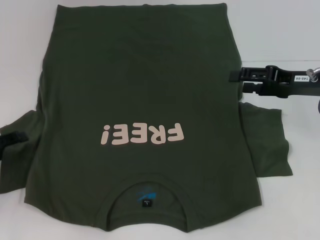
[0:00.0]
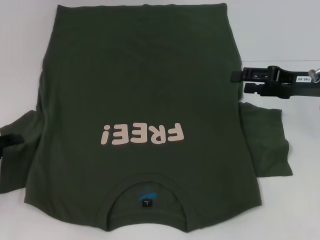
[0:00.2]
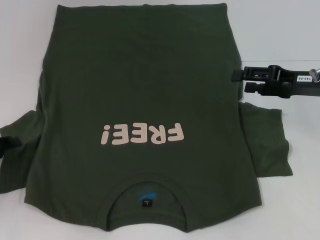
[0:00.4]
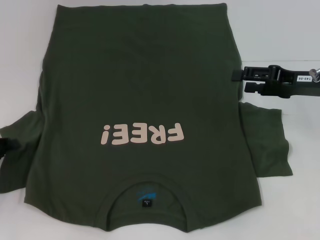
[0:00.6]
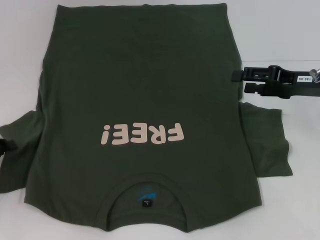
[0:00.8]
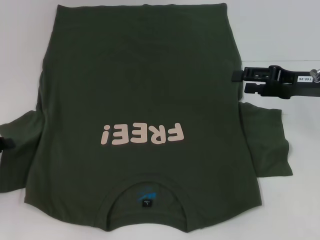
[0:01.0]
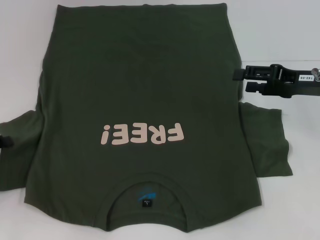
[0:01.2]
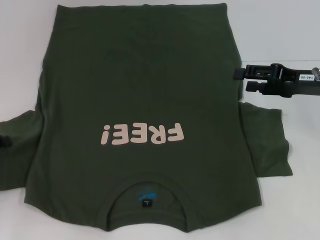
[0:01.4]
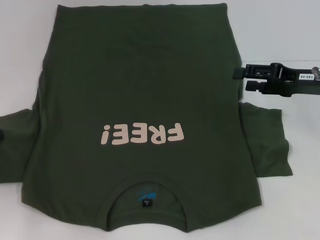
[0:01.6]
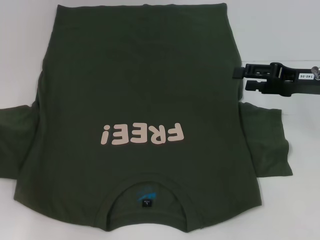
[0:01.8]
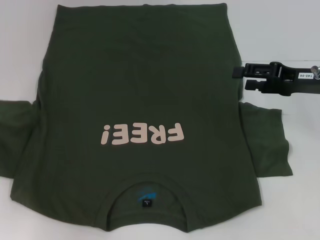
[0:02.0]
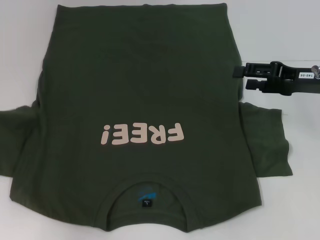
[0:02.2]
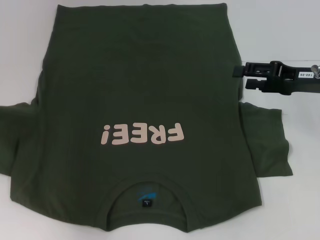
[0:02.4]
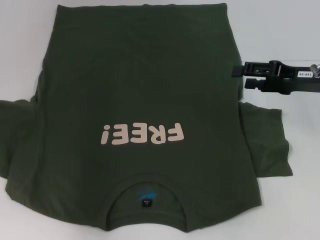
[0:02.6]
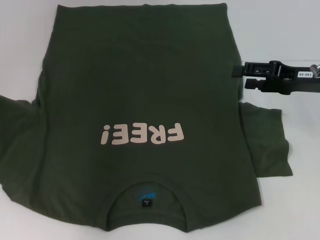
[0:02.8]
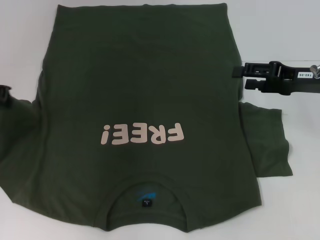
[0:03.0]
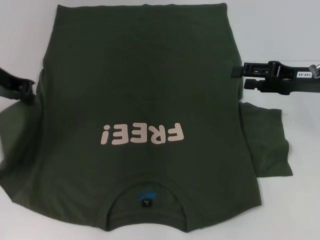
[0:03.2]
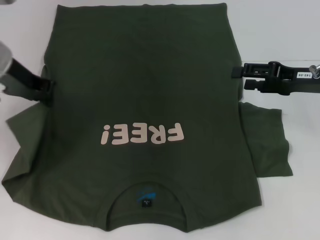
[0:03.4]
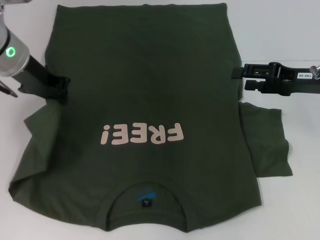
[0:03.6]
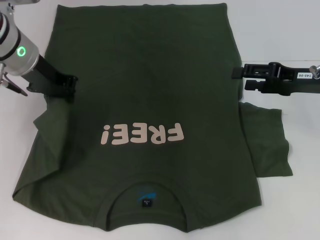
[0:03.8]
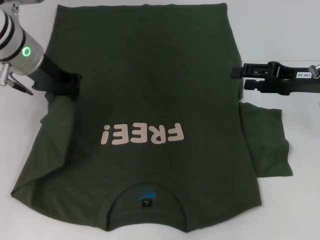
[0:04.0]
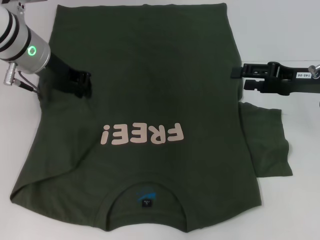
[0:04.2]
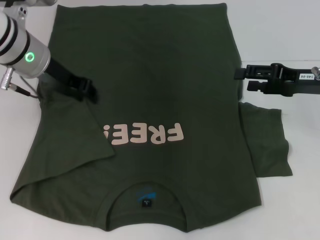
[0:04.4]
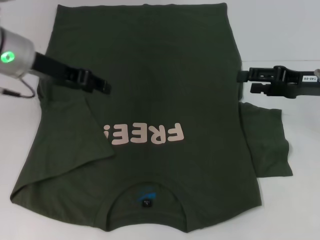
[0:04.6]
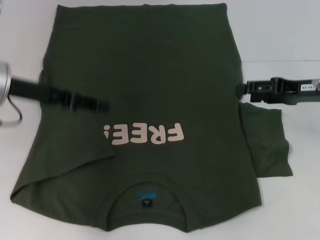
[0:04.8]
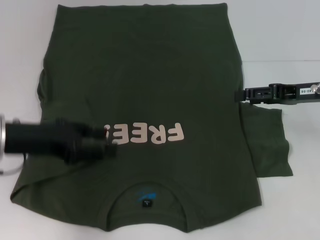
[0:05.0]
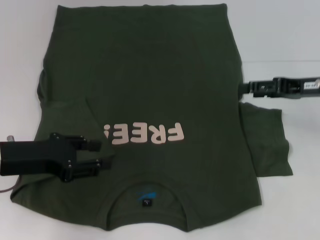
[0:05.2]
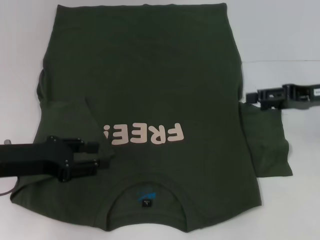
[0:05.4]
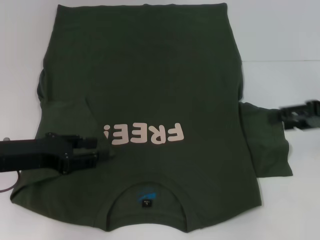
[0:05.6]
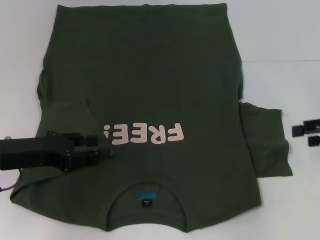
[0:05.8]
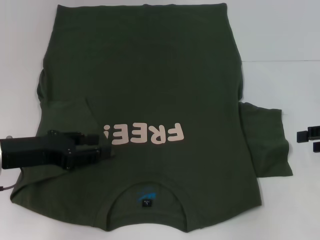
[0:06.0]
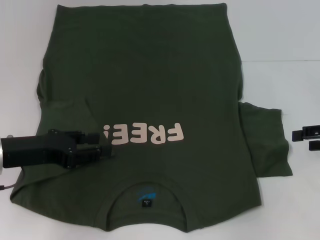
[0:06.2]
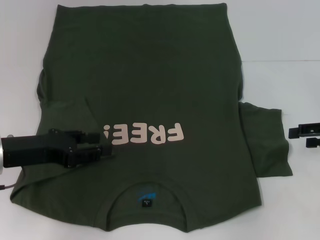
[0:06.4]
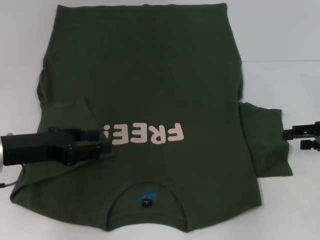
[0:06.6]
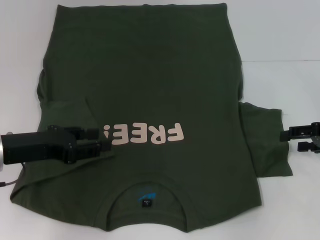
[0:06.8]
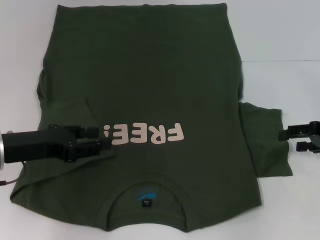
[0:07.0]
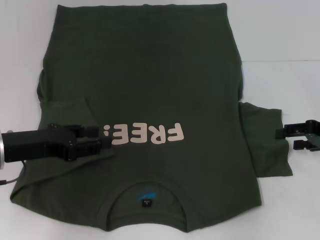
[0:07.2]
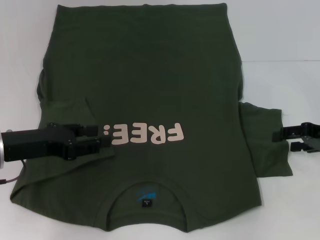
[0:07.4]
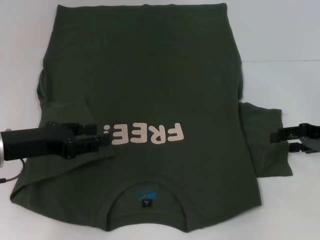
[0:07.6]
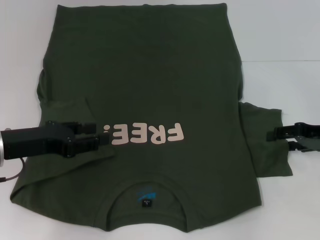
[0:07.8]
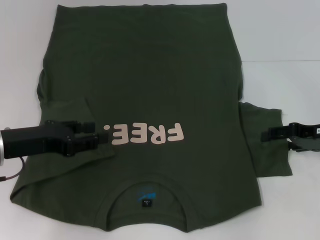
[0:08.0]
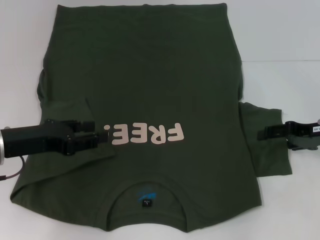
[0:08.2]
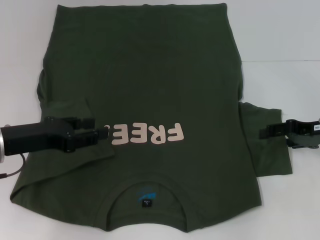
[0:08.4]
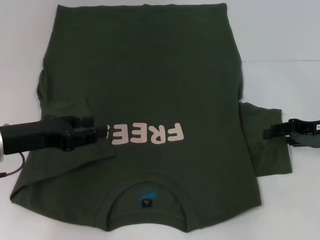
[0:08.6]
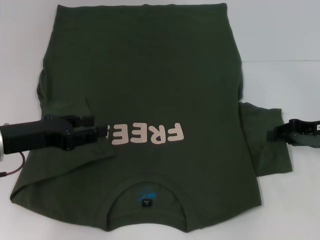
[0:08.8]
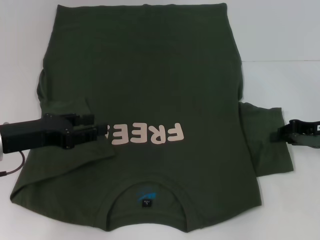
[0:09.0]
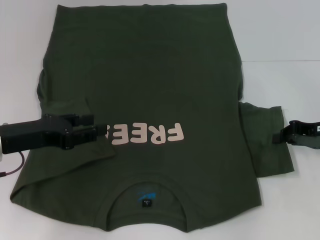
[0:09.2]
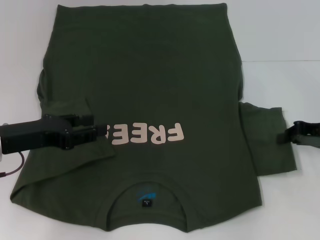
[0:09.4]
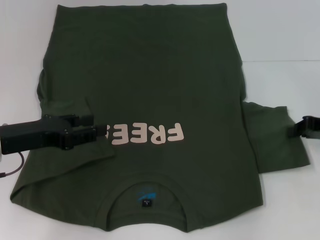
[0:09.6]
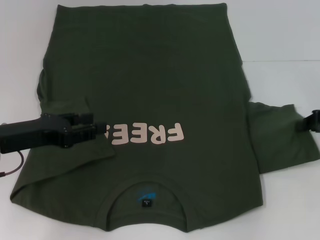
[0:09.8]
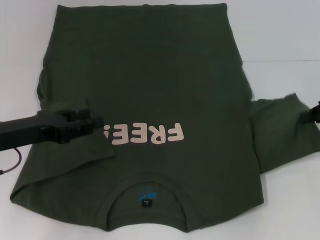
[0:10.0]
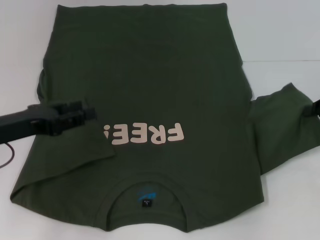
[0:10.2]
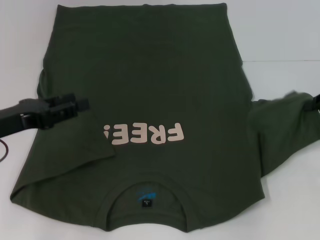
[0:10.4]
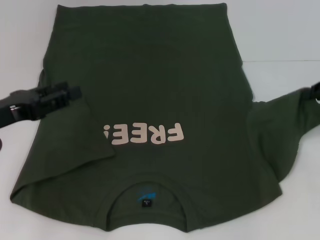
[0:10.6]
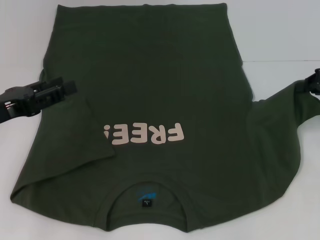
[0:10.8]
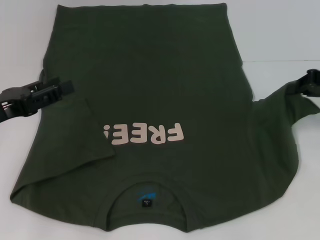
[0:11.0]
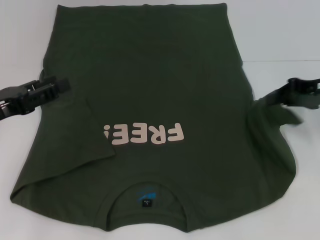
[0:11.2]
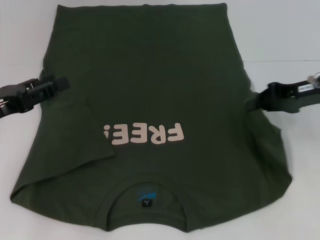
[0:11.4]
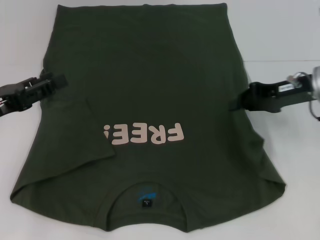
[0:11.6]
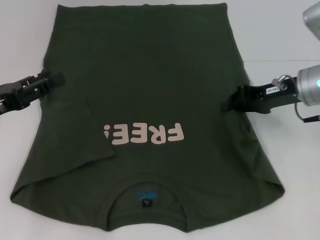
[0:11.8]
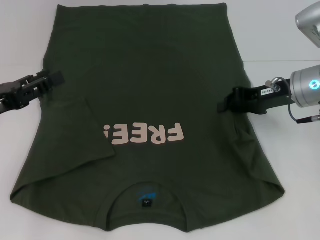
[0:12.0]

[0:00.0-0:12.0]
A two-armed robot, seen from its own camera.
Step, 0:00.0 to 0:04.4: Fold the bottom left sleeve with your left hand.
0:00.0 to 0:01.6: The left gripper closes up.
0:01.6 to 0:03.0: The left gripper shifts some 15 cm upward, forward and to the right.
0:03.0 to 0:04.4: The left gripper goes approximately 10 cm to the right.
0:04.4 to 0:06.0: The right gripper heads to the right and backward, covering about 10 cm; the left gripper travels backward, downward and to the left by approximately 15 cm.
0:06.0 to 0:07.6: The right gripper ends up some 5 cm from where it was.
0:07.6 to 0:09.0: The right gripper closes its fingers.
0:09.0 to 0:10.4: The right gripper ends up about 5 cm from where it was.
0:10.4 to 0:12.0: The right gripper heads to the left, covering roughly 15 cm.

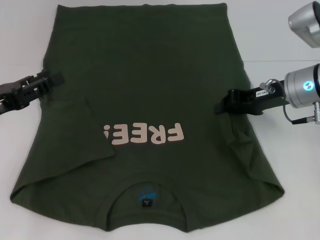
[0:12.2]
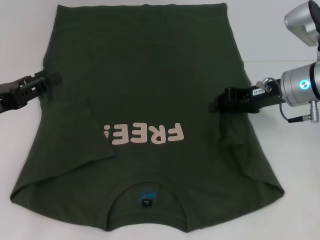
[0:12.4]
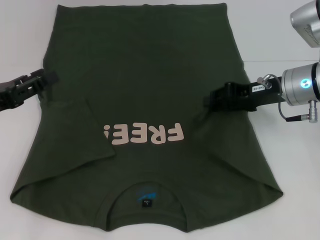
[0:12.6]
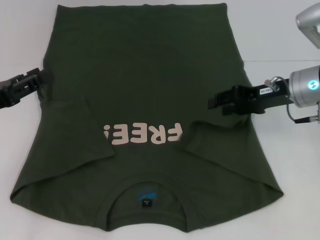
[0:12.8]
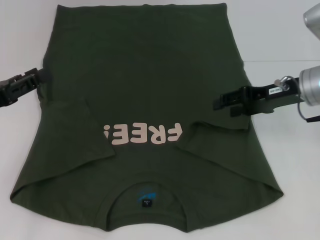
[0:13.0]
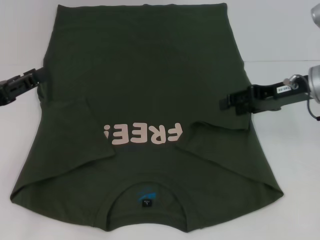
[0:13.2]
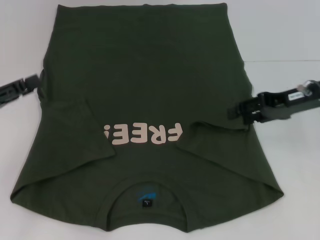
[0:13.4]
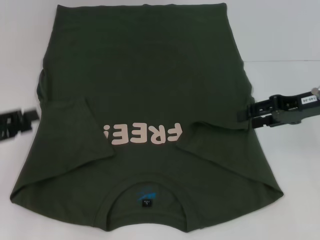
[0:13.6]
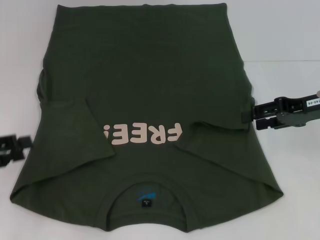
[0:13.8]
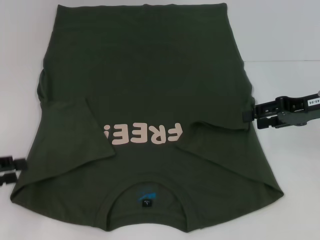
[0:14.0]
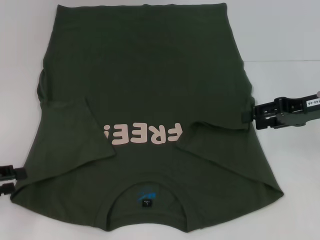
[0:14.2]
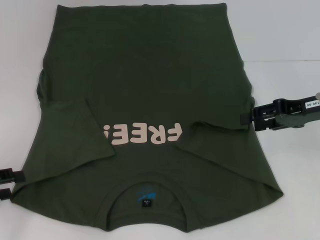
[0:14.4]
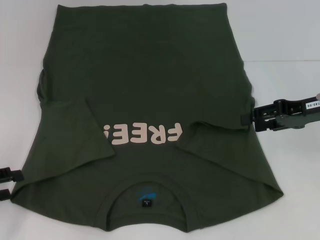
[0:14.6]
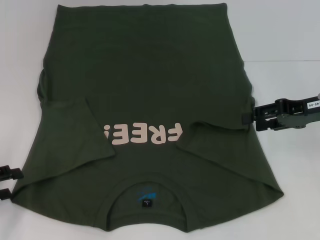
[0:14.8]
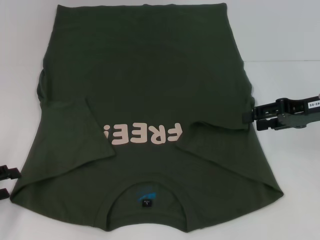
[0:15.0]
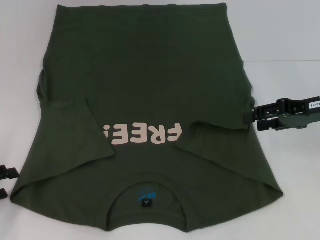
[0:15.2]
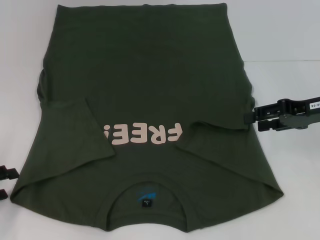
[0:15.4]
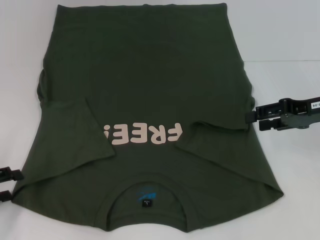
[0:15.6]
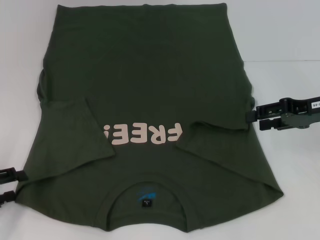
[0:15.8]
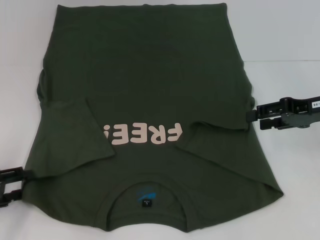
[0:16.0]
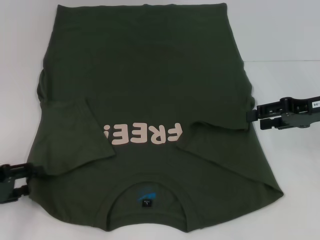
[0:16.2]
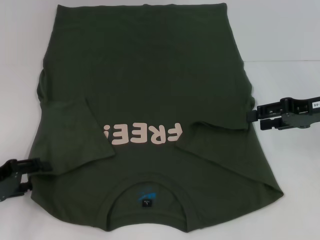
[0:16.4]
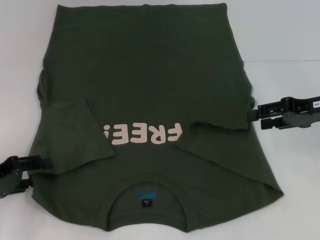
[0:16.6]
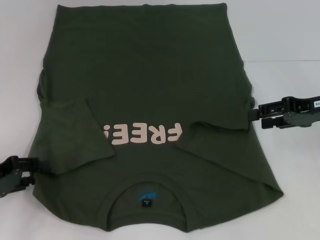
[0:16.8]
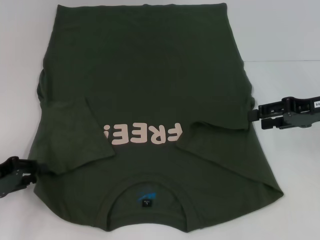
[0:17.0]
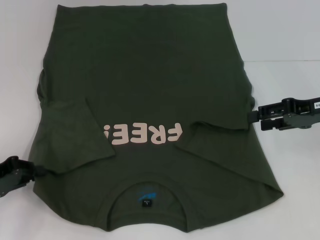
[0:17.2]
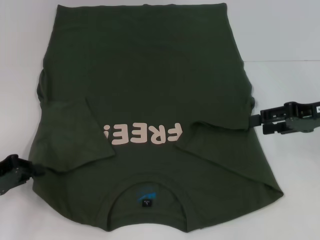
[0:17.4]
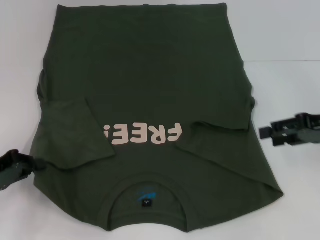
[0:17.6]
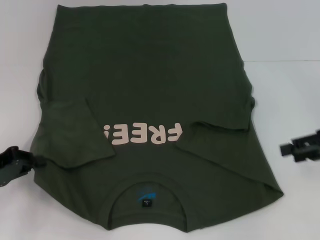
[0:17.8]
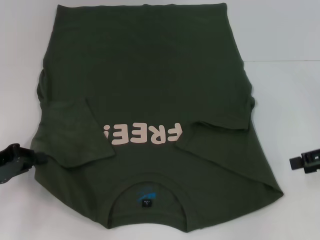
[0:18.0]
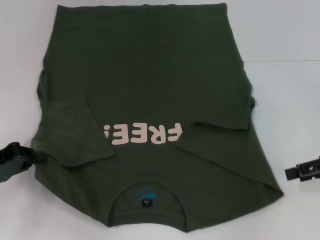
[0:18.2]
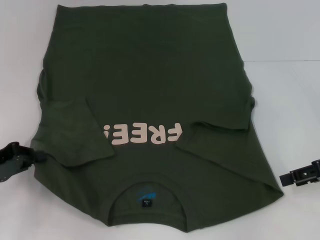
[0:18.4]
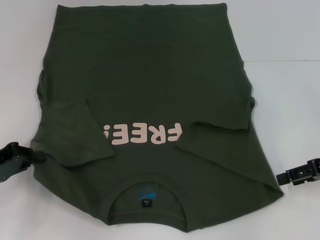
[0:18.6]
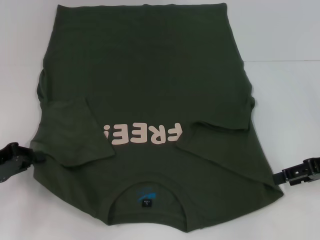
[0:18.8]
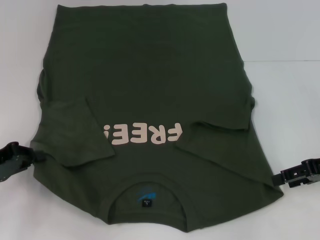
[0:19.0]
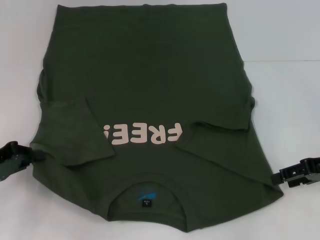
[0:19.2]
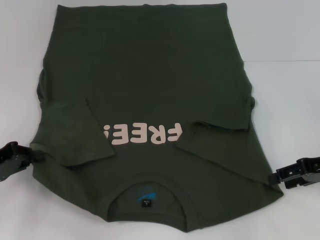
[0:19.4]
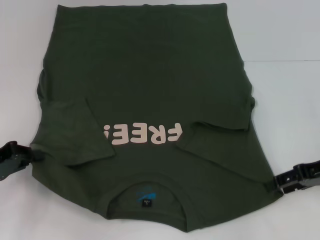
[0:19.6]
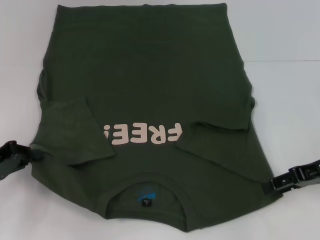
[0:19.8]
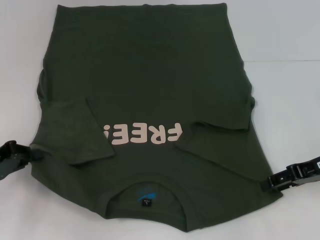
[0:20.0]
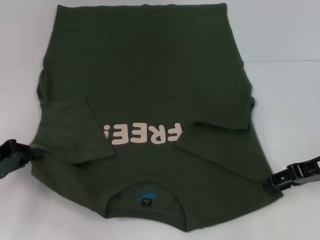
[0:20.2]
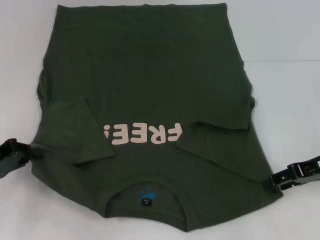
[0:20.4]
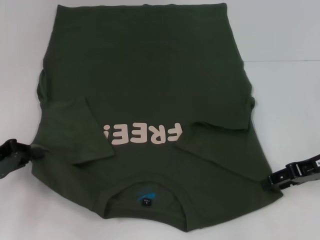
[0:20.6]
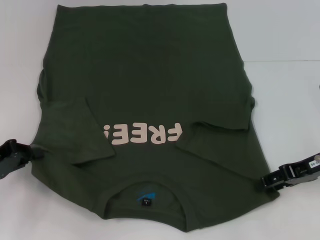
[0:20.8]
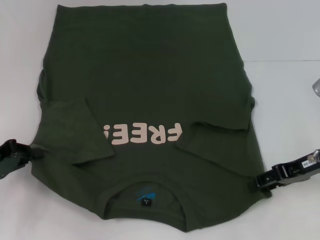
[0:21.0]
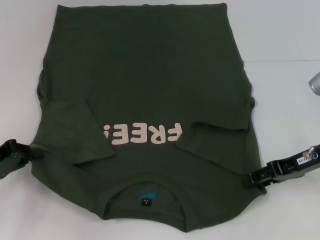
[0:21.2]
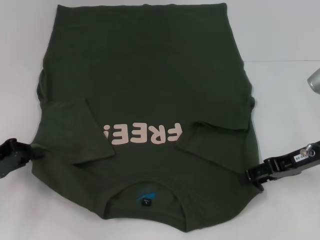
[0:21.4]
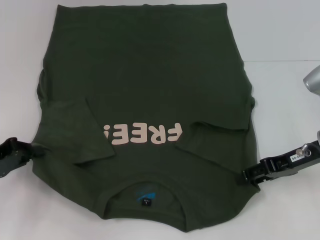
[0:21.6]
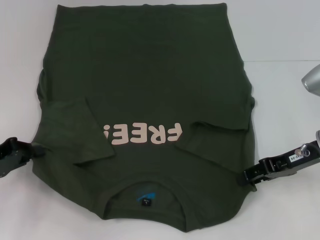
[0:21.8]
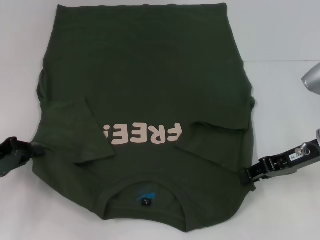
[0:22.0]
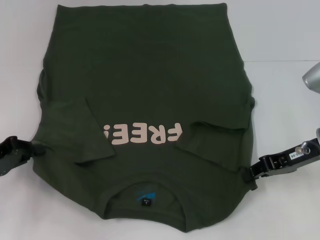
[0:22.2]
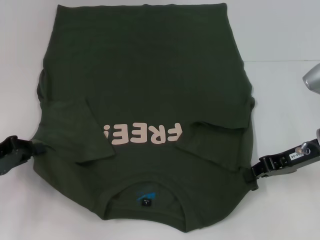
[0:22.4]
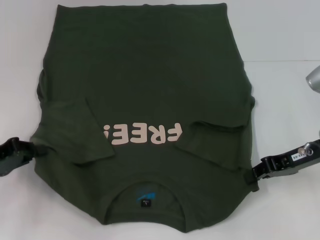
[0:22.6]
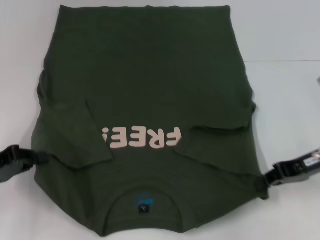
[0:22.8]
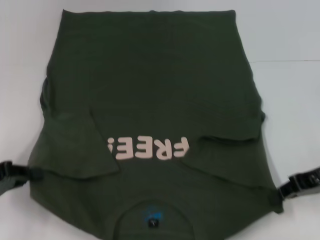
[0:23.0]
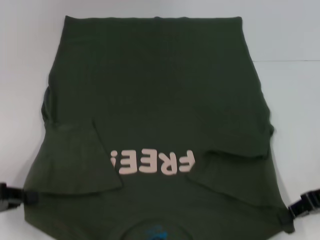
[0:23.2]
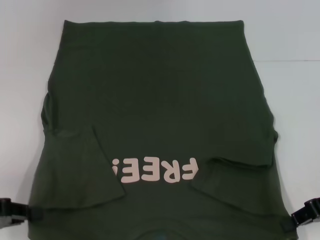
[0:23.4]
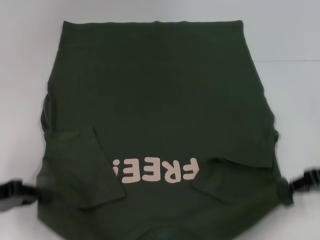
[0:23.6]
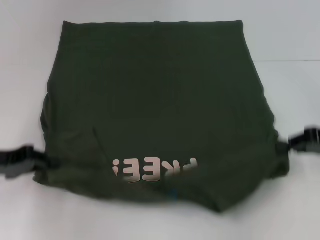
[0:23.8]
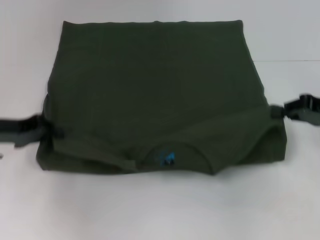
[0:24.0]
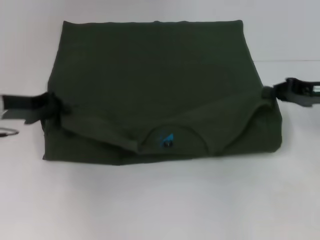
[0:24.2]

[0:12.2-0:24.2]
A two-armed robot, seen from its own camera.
Step, 0:13.0 to 0:17.6: Grab the bottom left corner with your left hand.
Step, 0:17.8 to 0:22.4: Grab the bottom right corner with your right hand.
0:12.2 to 0:13.8: The right gripper shifts about 5 cm to the right, and opens. The left gripper goes about 5 cm to the left.
0:13.8 to 0:15.2: The left gripper shifts some 5 cm downward.
0:15.2 to 0:16.6: The left gripper moves roughly 5 cm.
0:16.6 to 0:18.2: The left gripper closes its fingers, while the right gripper shifts by roughly 5 cm.
0:18.2 to 0:19.8: The right gripper moves some 5 cm.
0:19.8 to 0:21.2: The grippers move only a little.
0:21.2 to 0:22.6: The right gripper closes up.
0:22.6 to 0:24.2: The left gripper is displaced forward by approximately 10 cm, while the right gripper changes place by approximately 5 cm.
